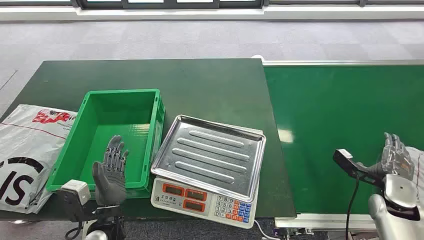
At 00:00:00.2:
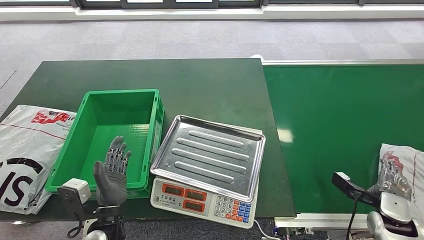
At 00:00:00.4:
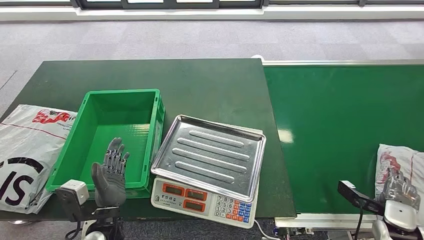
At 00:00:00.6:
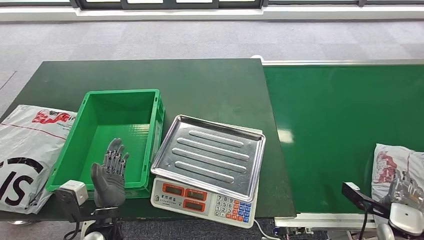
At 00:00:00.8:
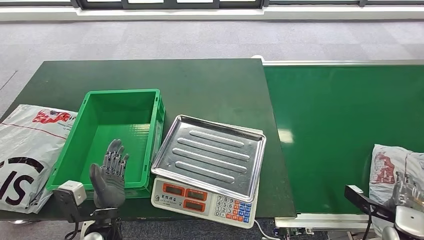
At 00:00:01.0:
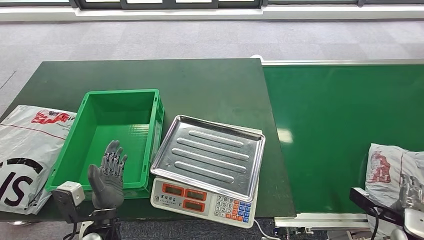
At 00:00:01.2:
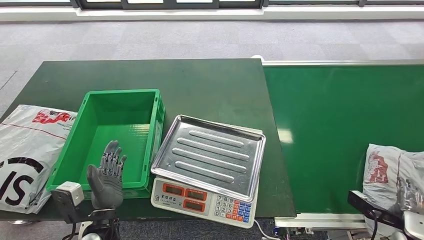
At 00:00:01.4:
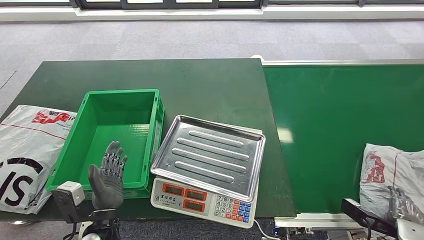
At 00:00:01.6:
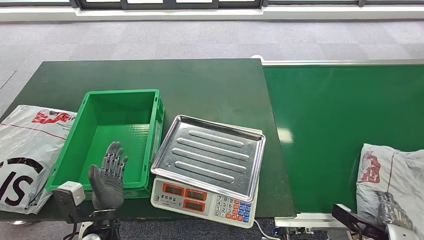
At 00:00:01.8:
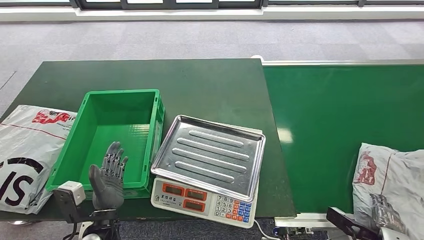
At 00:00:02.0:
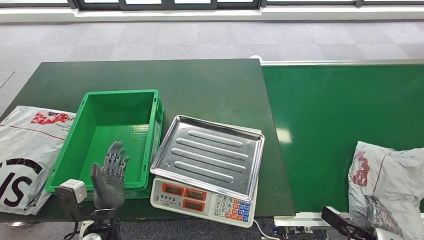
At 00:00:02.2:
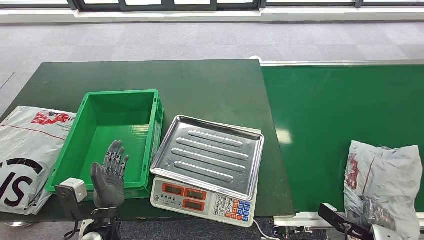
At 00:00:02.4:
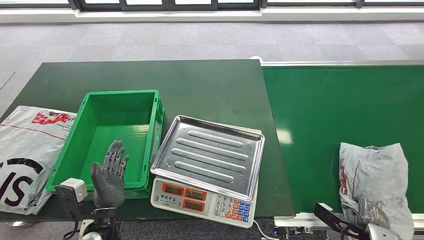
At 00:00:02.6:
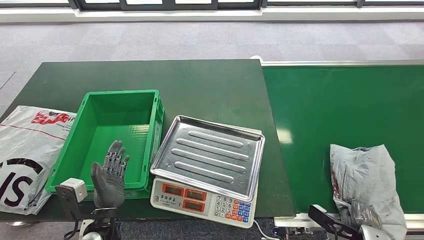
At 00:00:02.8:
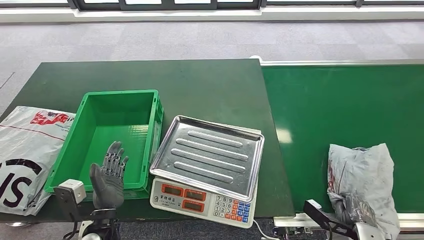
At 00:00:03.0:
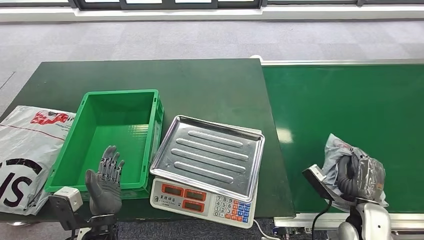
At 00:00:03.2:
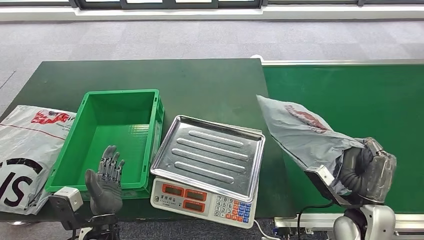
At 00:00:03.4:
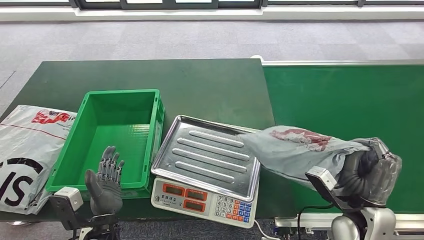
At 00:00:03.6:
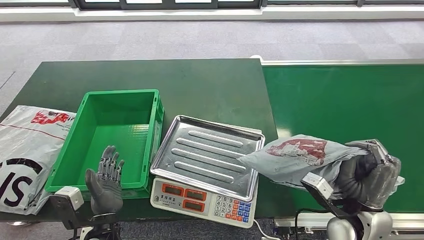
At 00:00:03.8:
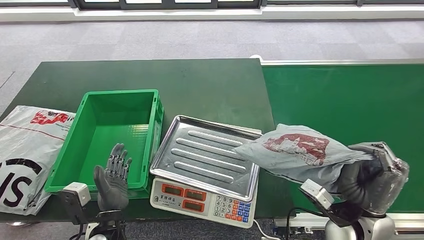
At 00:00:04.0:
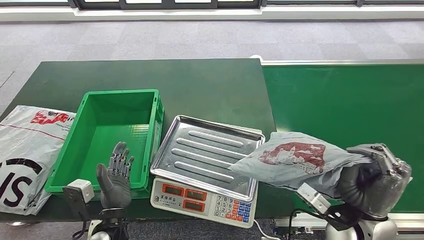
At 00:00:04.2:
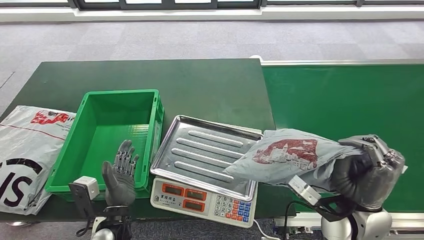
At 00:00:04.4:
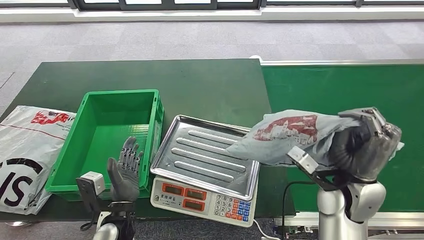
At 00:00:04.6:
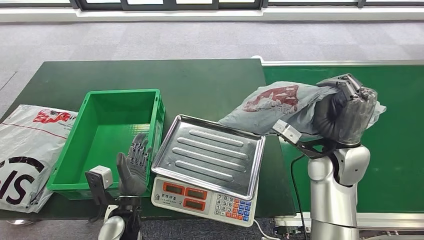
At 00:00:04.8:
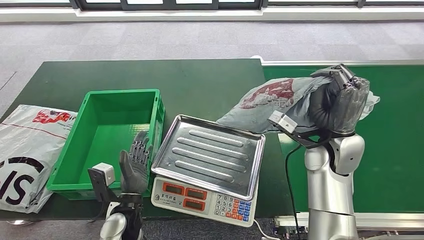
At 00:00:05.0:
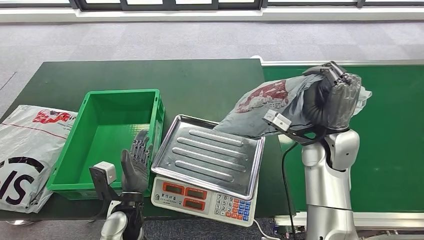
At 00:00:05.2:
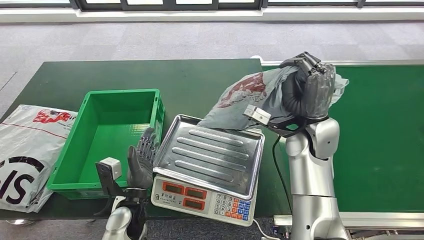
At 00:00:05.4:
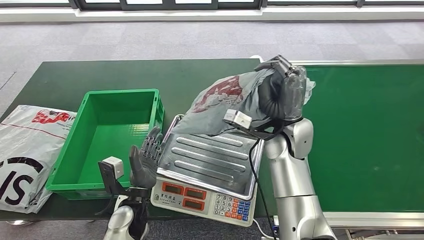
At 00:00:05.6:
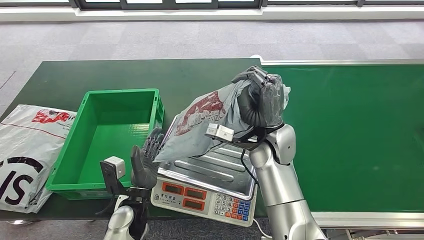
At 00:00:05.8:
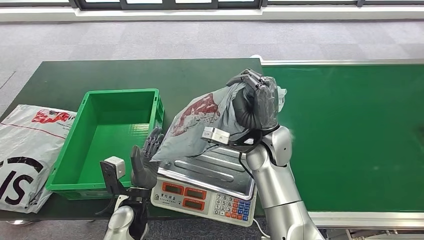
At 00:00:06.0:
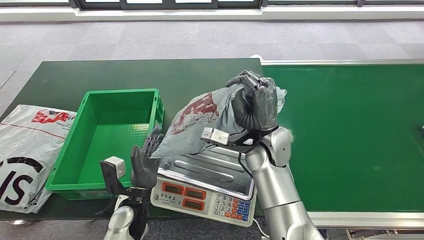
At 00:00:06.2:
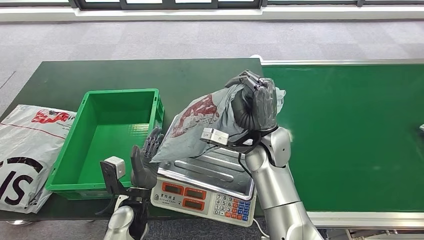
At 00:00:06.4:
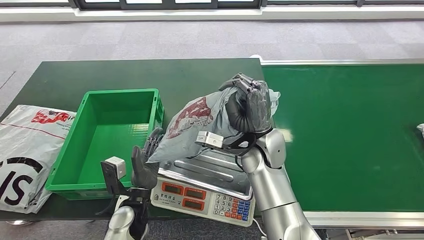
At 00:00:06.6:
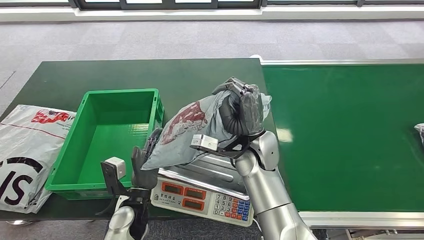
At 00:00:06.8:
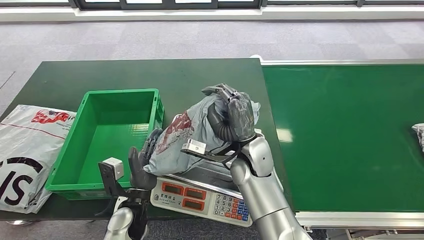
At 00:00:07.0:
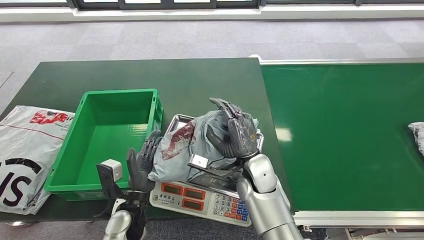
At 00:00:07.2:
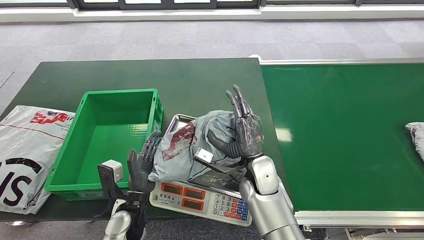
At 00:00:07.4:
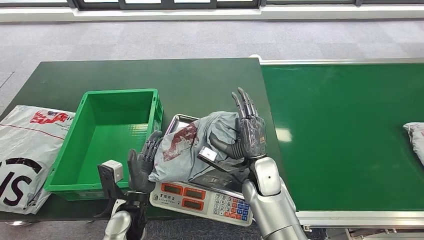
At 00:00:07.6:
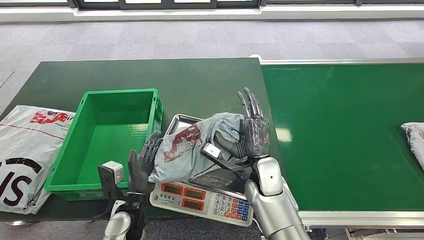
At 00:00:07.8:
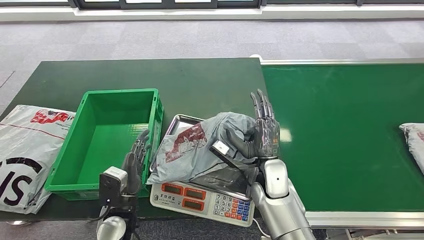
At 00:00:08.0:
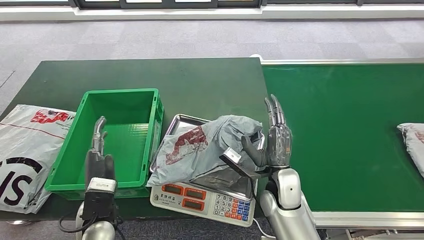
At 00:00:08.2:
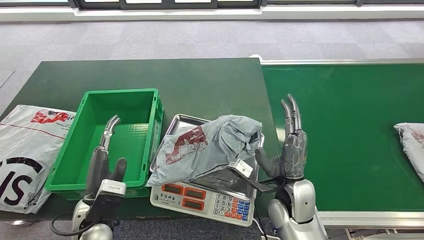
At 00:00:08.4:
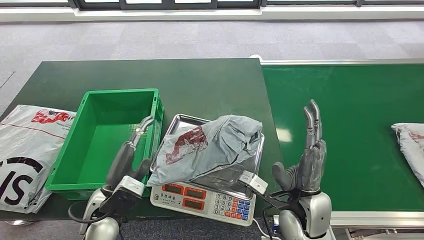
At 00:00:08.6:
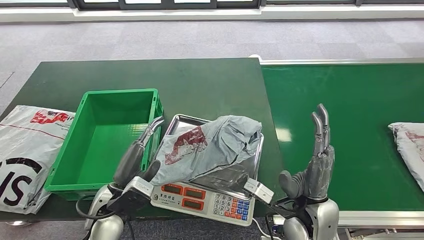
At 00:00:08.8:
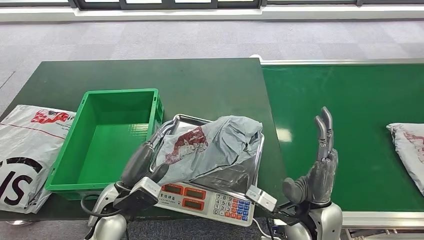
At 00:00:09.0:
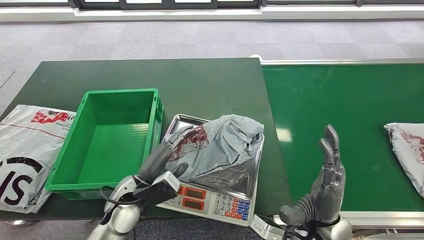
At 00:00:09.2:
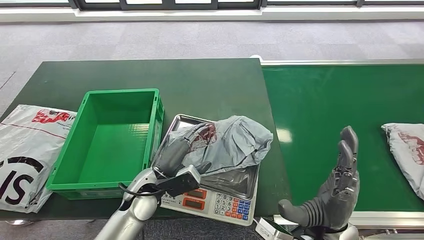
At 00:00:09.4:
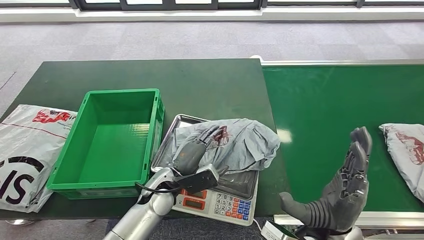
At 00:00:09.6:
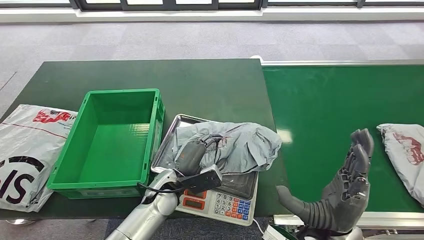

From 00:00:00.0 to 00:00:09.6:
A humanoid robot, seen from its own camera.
Step, from 00:00:00.0 to 00:00:03.0: Pick up the package from the conveyor belt.
Step, from 00:00:03.2 to 00:00:07.8: Place the package onto the inbound machine.
From 00:00:01.6 to 00:00:03.2: The right hand heads to the left, upward and forward, covering approximately 15 cm.

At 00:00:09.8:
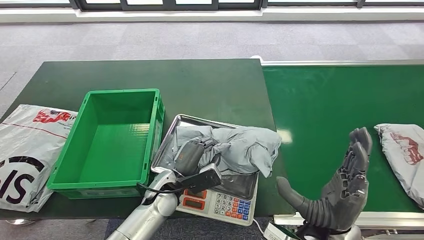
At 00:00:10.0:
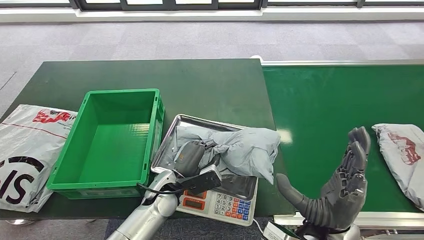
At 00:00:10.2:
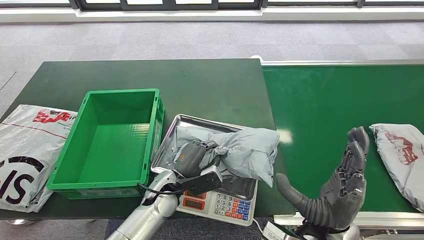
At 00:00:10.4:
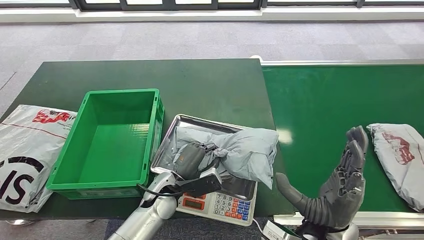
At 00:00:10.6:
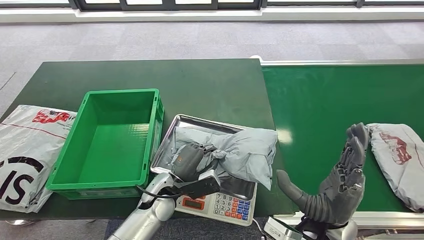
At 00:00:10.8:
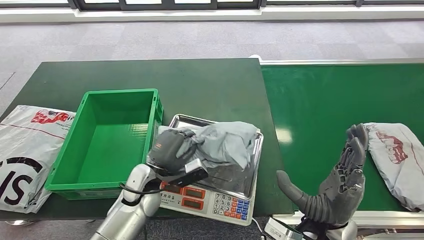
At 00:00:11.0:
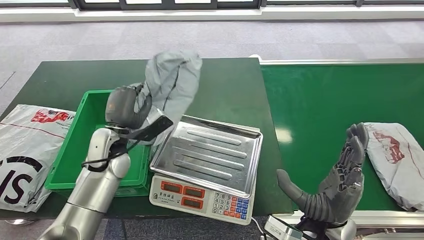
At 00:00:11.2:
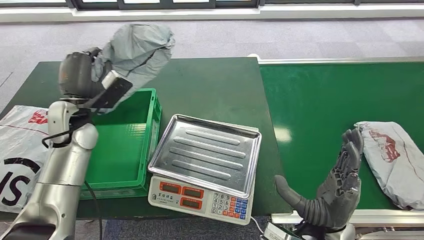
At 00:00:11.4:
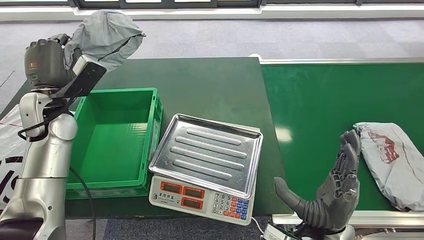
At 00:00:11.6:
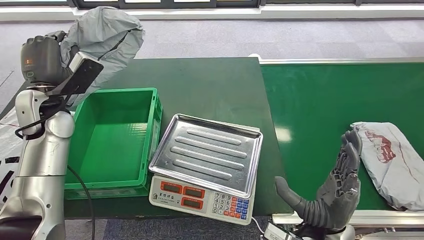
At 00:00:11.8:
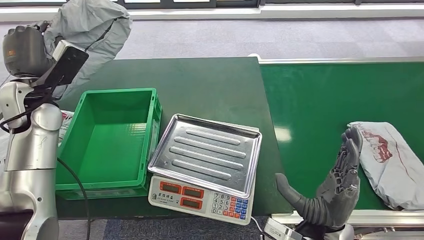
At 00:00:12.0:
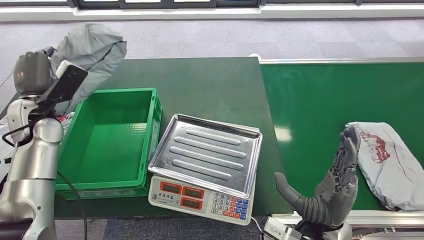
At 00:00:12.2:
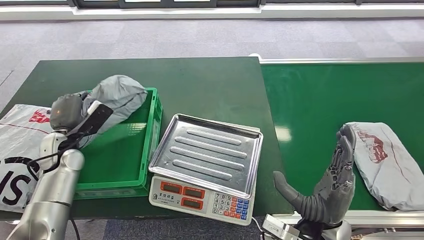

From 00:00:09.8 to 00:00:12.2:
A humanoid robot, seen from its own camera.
Step, from 00:00:11.2 to 00:00:12.2: Place the package into the parcel locker.
